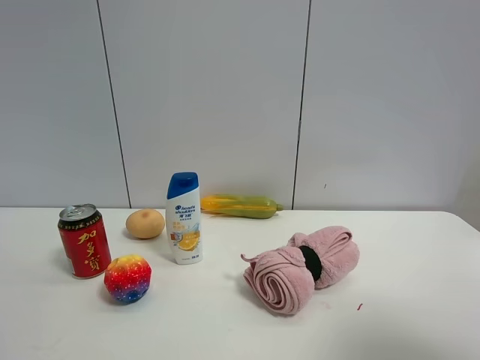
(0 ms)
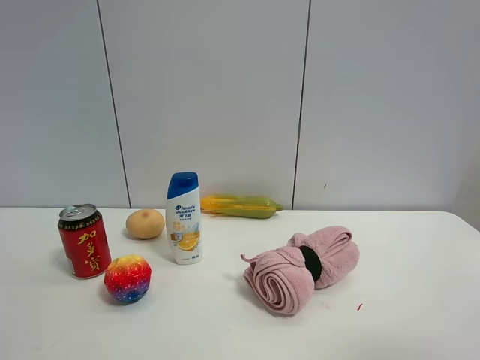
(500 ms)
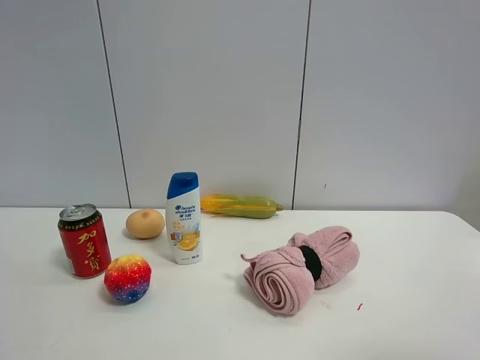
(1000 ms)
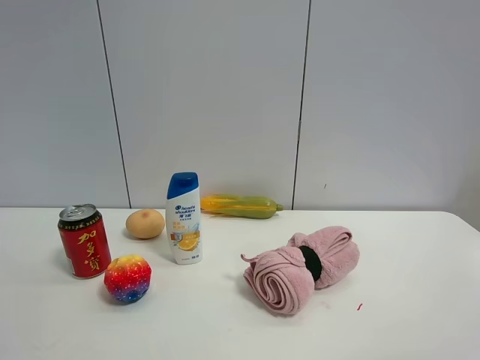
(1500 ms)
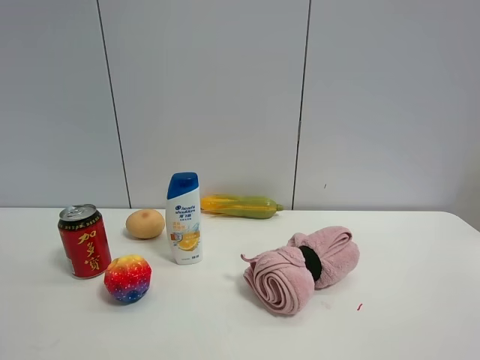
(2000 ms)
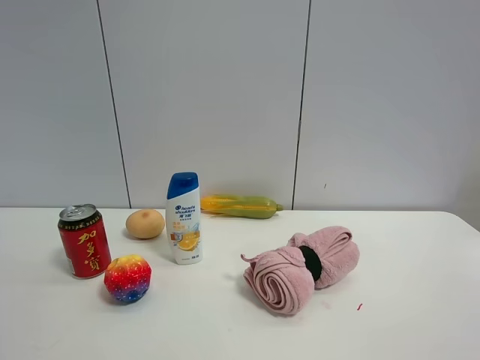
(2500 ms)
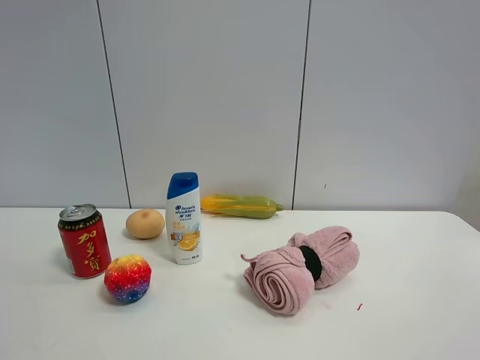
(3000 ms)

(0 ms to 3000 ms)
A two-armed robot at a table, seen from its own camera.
Task of the whole recording: the gripper move the object.
0 ms - 1500 ms: The right gripper is displaced backward and downward by some 10 cm.

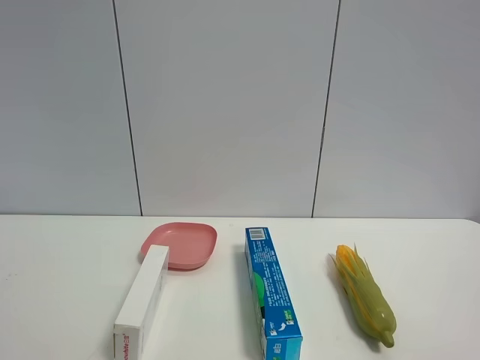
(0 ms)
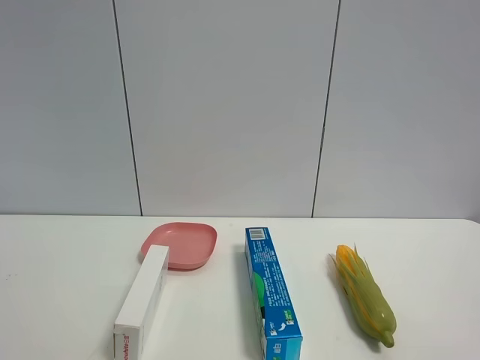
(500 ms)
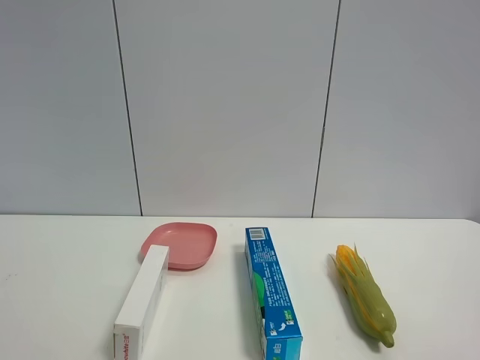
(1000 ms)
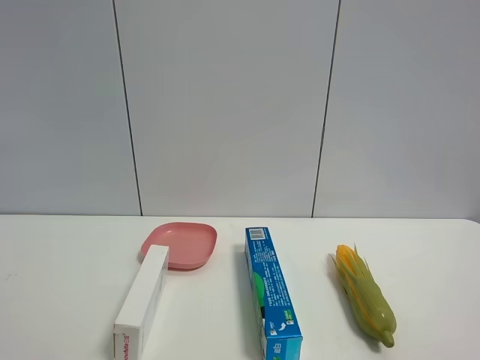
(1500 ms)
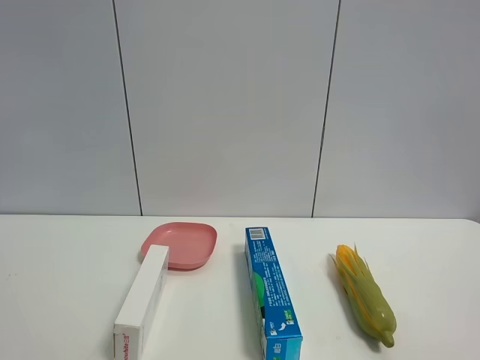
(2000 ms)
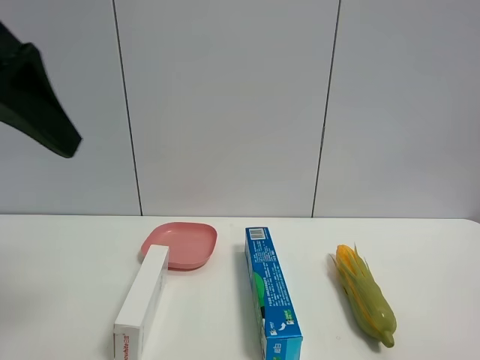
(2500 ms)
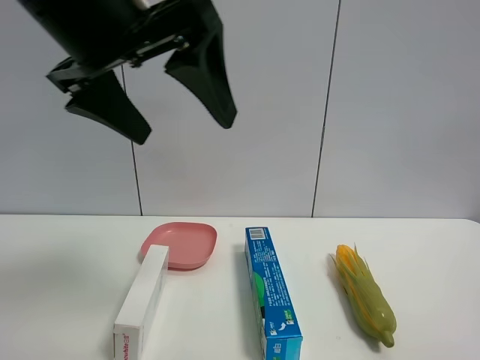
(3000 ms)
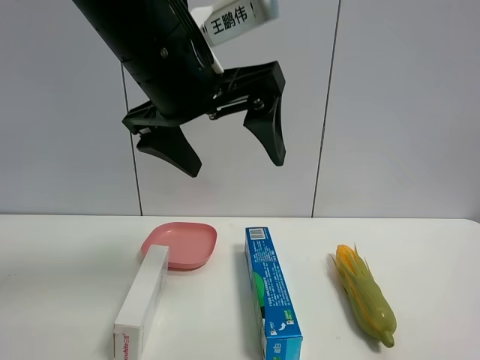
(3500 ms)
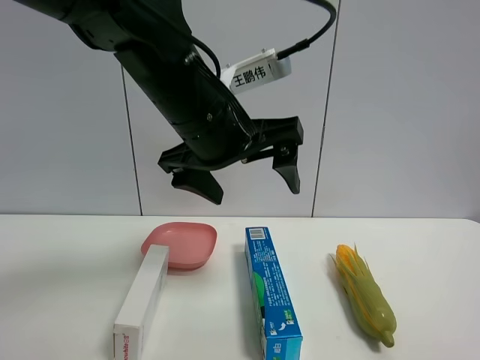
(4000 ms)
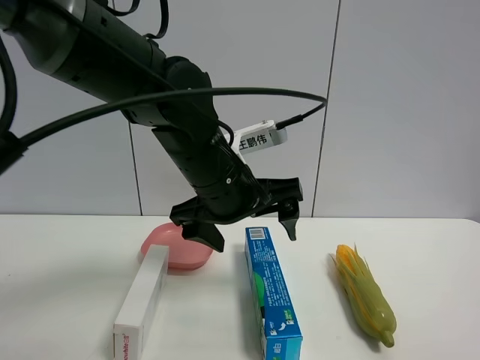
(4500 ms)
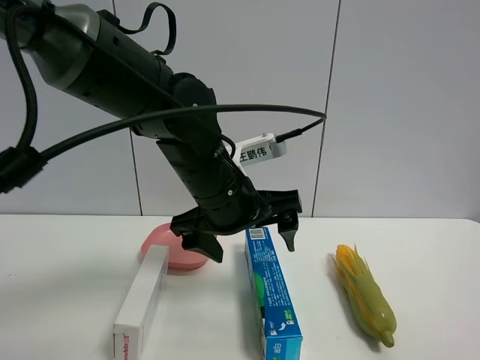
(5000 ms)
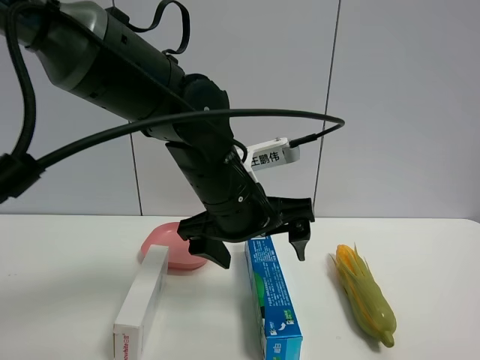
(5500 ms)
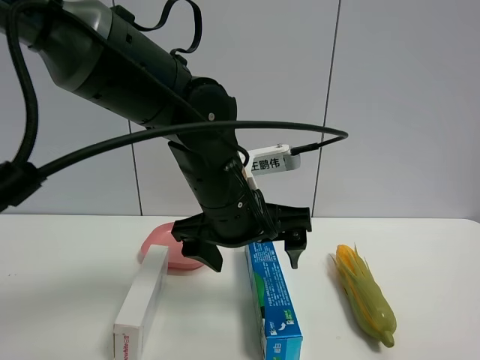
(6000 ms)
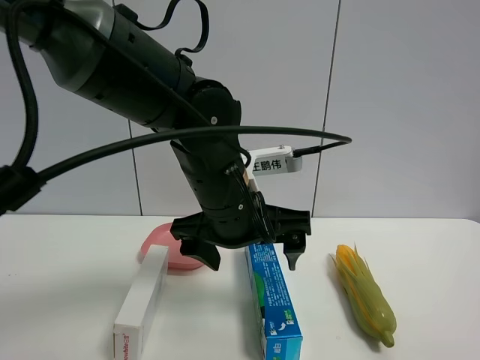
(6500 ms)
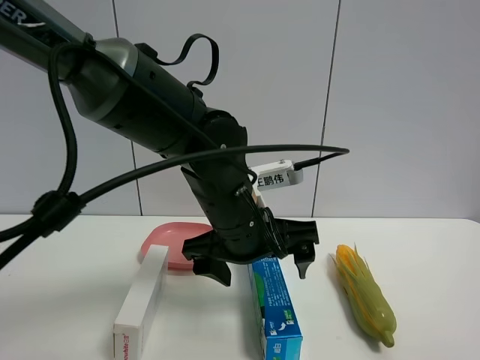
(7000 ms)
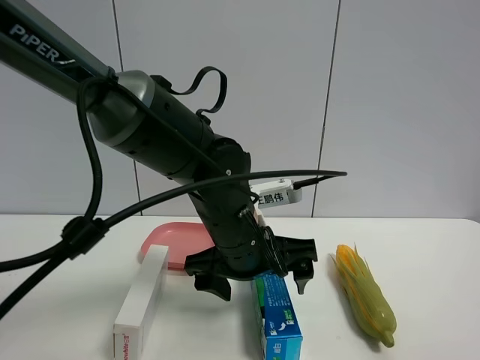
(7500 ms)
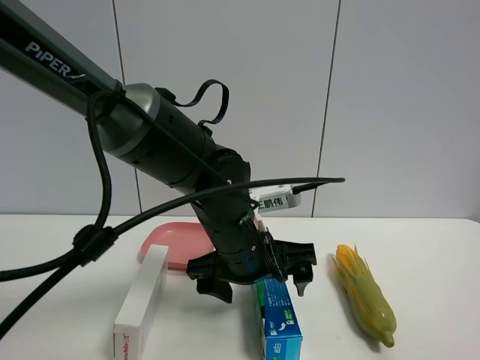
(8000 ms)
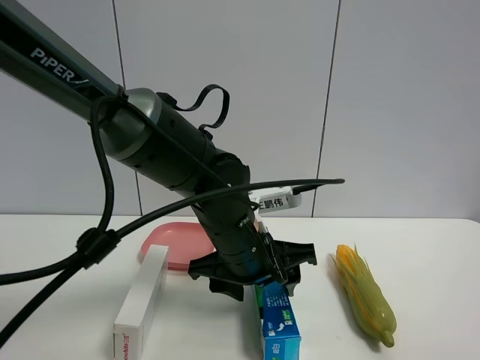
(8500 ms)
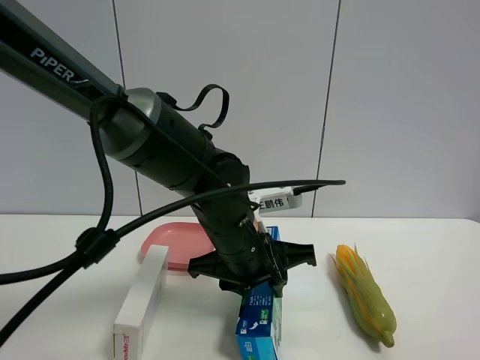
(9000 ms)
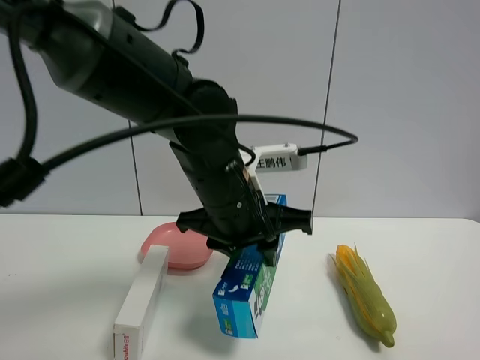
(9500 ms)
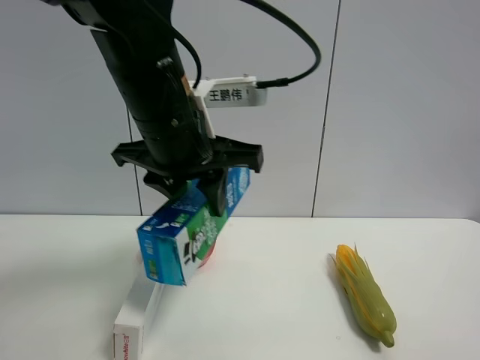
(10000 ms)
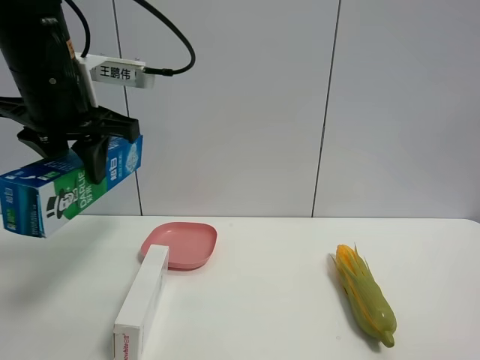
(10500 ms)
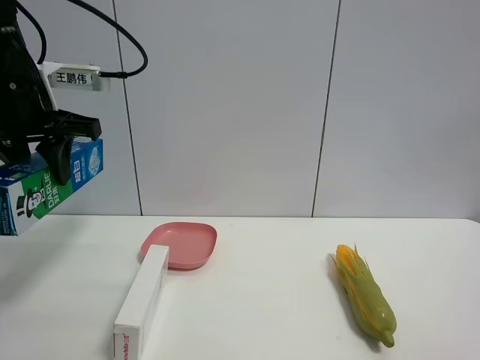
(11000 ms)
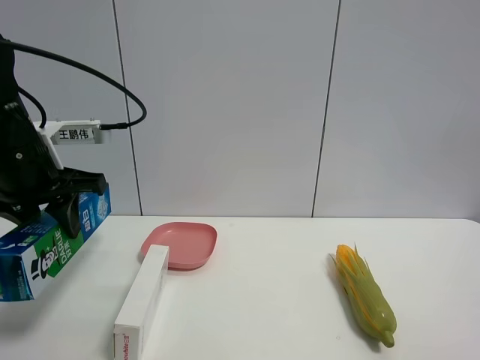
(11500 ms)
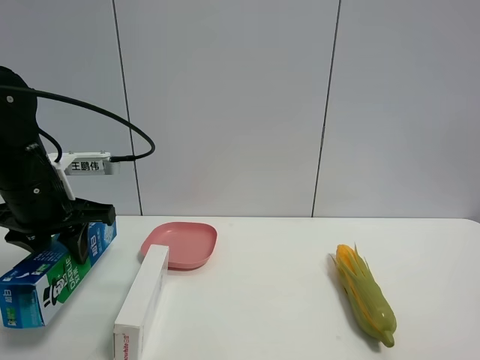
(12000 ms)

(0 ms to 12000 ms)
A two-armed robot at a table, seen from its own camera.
Task of the whole recording: the gripper move the object.
Step, 0 ms - 8500 ms: Grasp the toothpaste with the left gripper.
2000 ms - 4000 ms: The left gripper goes some 30 cm to the right and forward.
4000 ms - 6000 ms: The left gripper goes about 10 cm downward.
6000 ms - 8000 ms: The left gripper is displaced downward by roughly 5 cm.
8000 ms - 10000 ms: The left gripper goes approximately 15 cm upward and to the left, and closes up.
10000 ms - 12000 ms: The left gripper heads to the left and downward, covering some 20 cm.

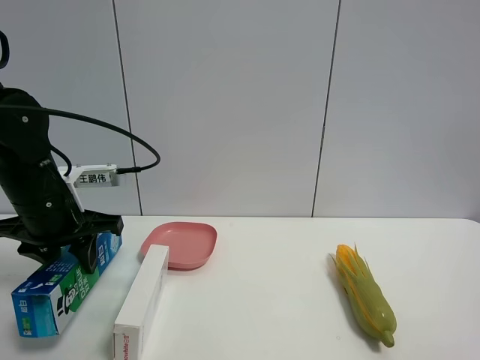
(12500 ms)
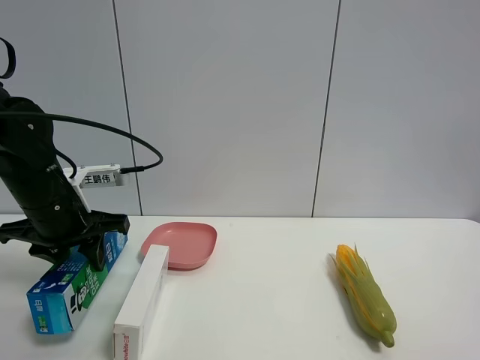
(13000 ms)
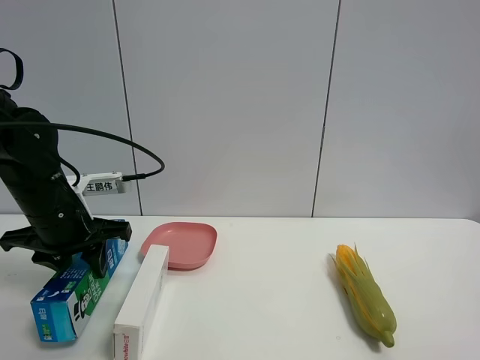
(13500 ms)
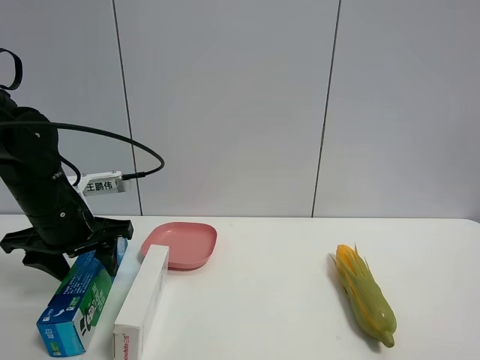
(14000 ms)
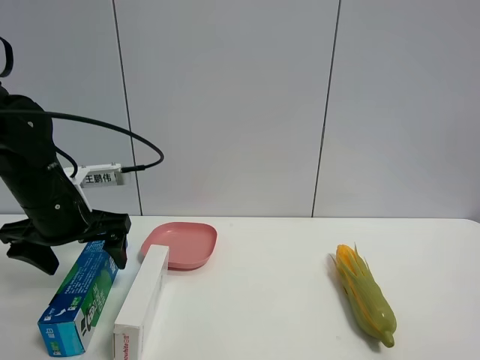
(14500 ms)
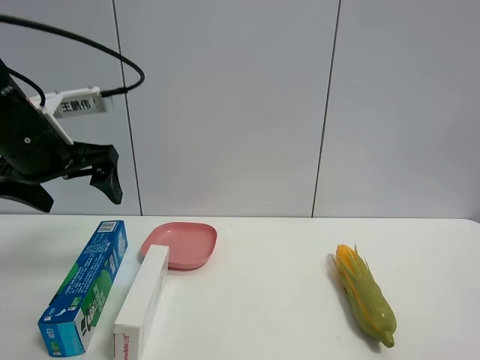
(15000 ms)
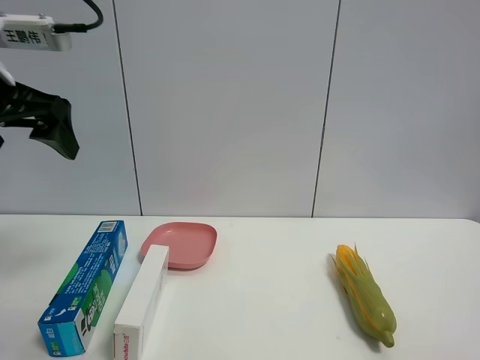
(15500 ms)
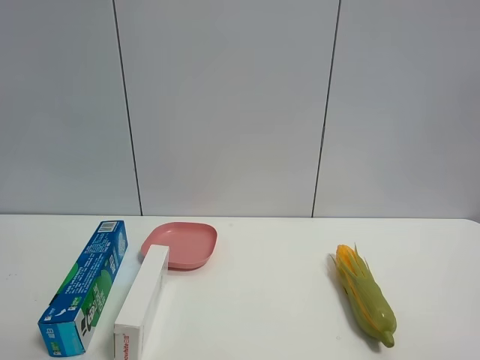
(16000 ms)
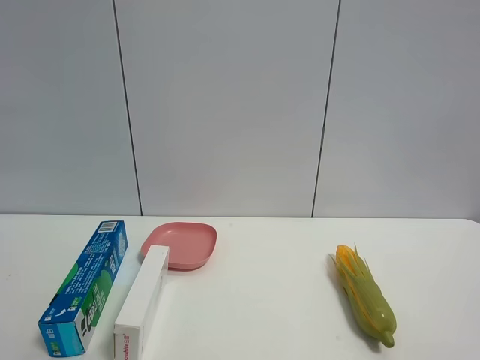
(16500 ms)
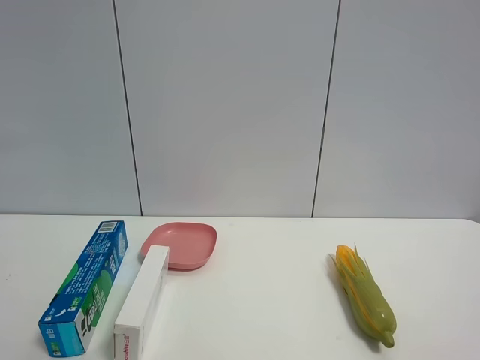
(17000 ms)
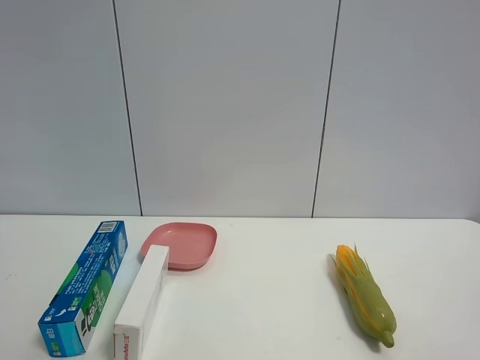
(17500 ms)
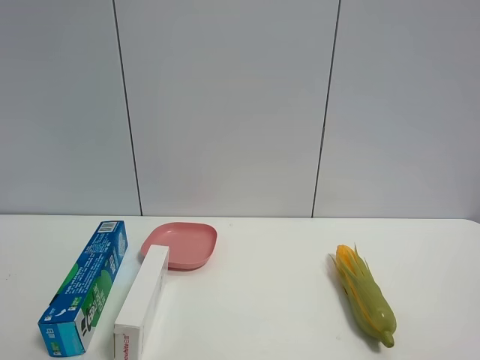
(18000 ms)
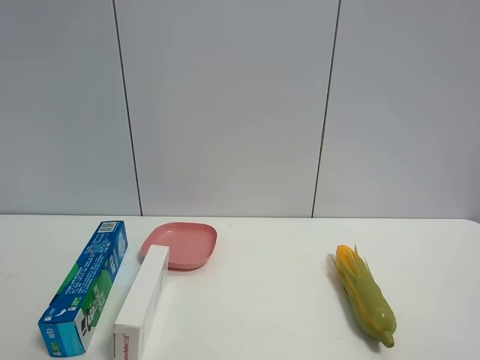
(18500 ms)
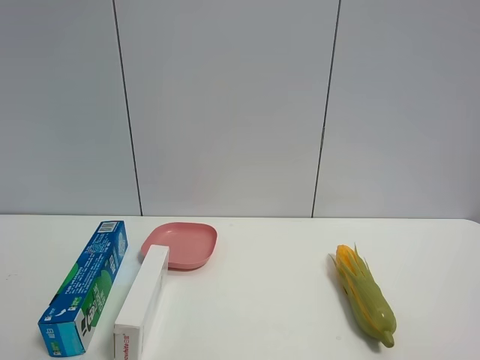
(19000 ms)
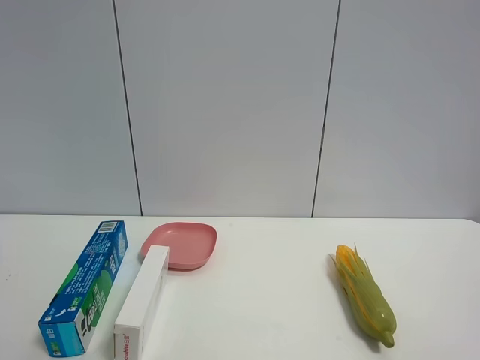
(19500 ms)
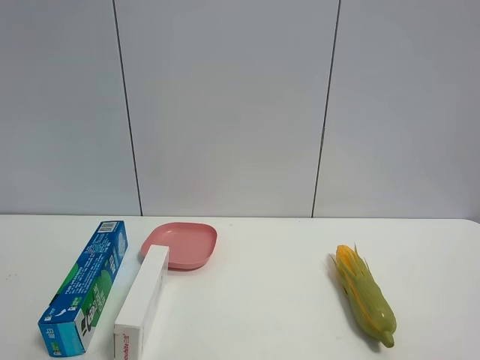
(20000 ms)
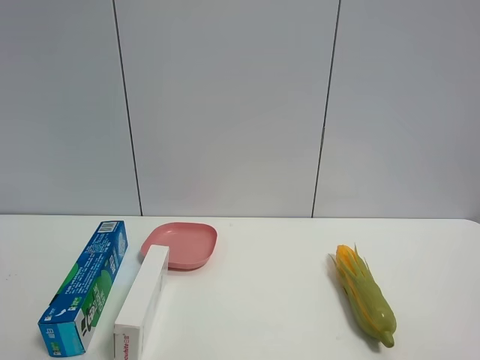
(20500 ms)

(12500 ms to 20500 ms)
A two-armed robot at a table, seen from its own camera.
Task of the whole recording: the gripper move the object.
12500 ms - 14500 ms: The left gripper opens up.
14500 ms - 16500 ms: The left gripper heads upward, backward and to the left, covering about 30 cm.
18500 ms - 20500 ms: The two grippers keep their place.

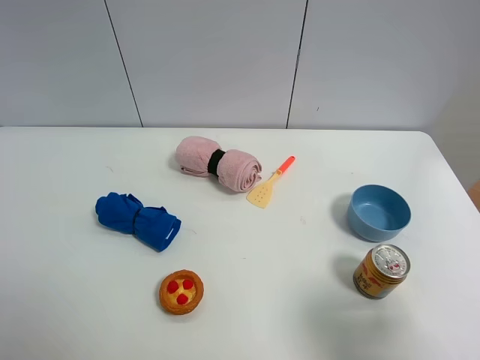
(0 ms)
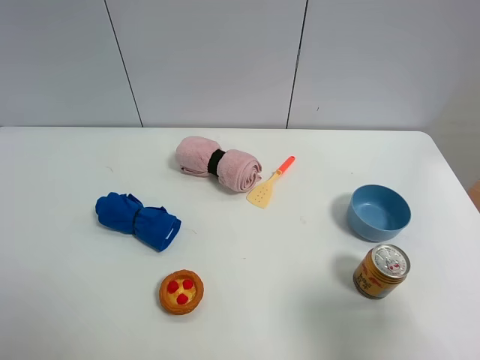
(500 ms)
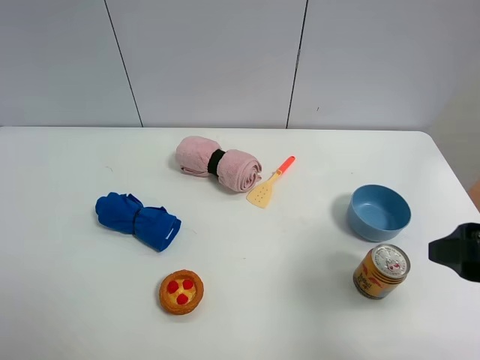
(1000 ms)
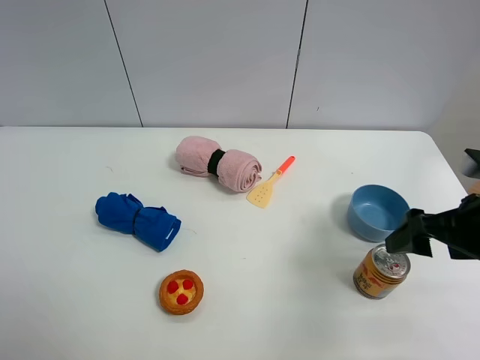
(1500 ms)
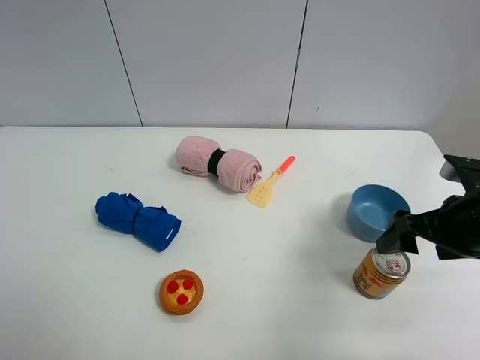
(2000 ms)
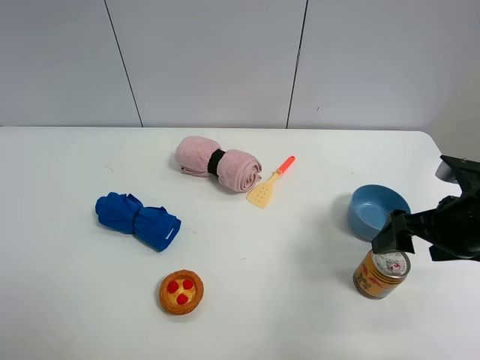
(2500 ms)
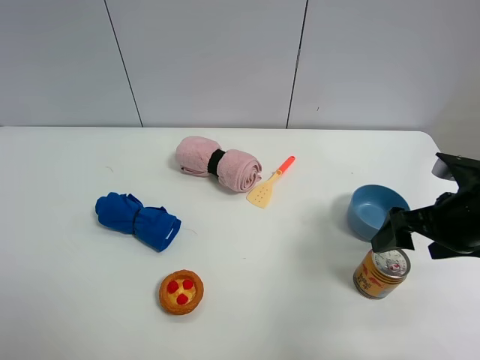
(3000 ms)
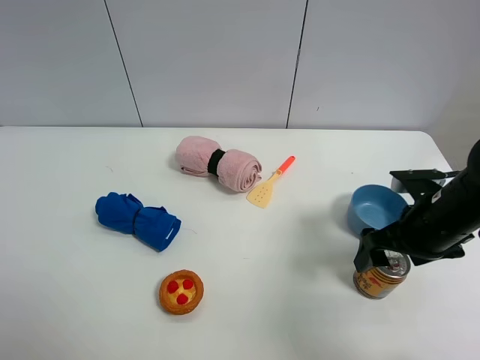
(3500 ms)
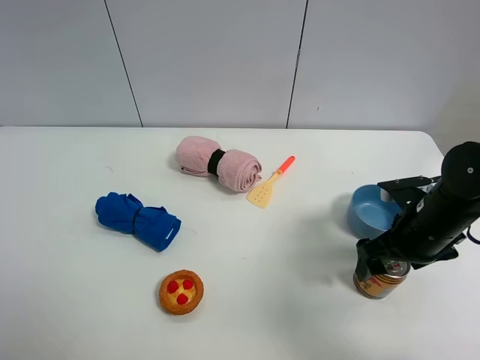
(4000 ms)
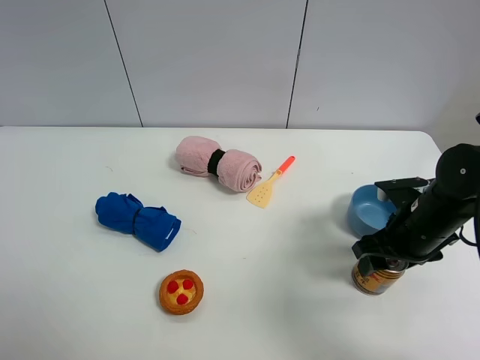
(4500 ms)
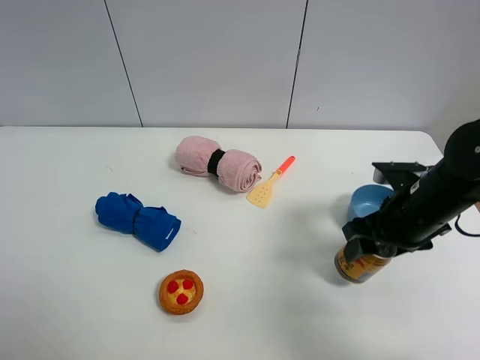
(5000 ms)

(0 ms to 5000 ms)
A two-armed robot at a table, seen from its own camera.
Task of the whole recording: the gripper move the object.
Step, 0 ms - 4000 ms: Grasp the red bull with the right gripper.
0 ms - 2500 ms: The right gripper is displaced forward by approximately 20 cm.
2500 ms - 5000 ms: The right gripper heads to the left, covering approximately 5 cm, and closes up.
